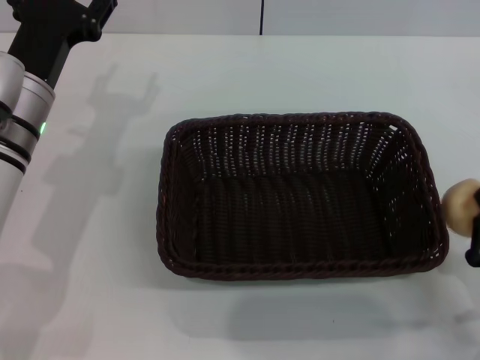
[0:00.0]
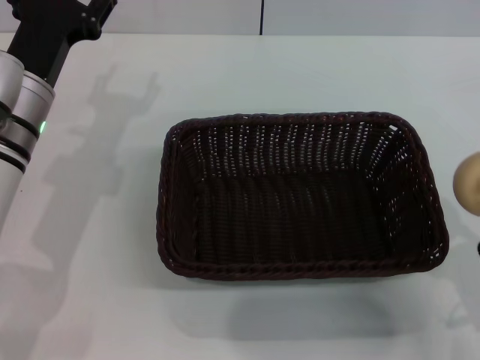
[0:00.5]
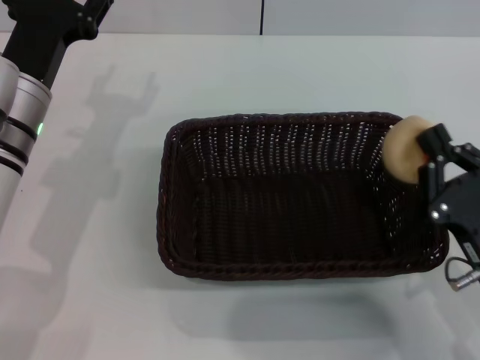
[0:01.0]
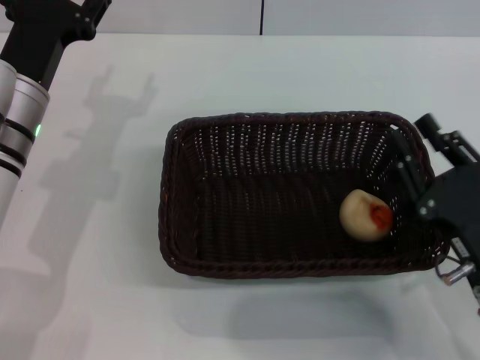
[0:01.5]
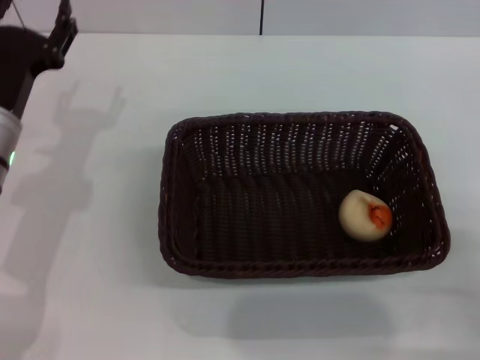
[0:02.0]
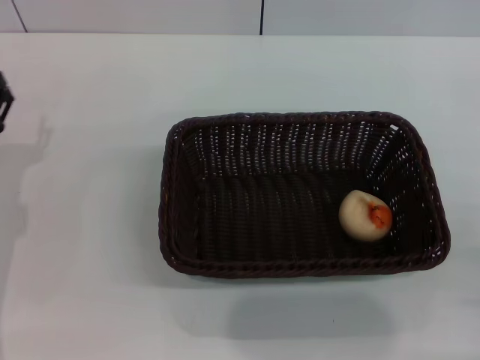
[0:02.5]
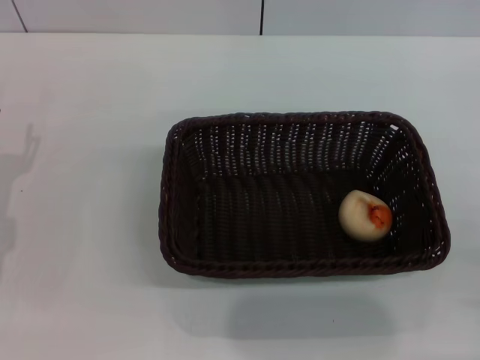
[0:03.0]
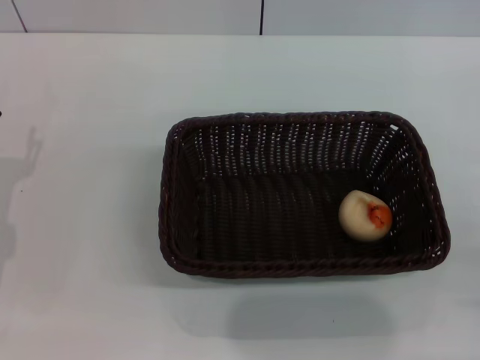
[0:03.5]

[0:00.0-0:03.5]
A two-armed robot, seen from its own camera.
Step, 0:00.0 to 0:01.0: Place the egg yolk pastry into the basket with the right gripper.
0:00.0 to 0:02.0: The right gripper opens its fingers.
0:02.0 to 0:03.5: The left gripper shifts approximately 10 cm to the left, backward and downward.
